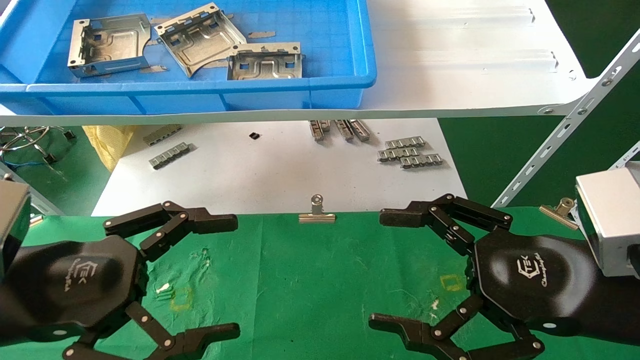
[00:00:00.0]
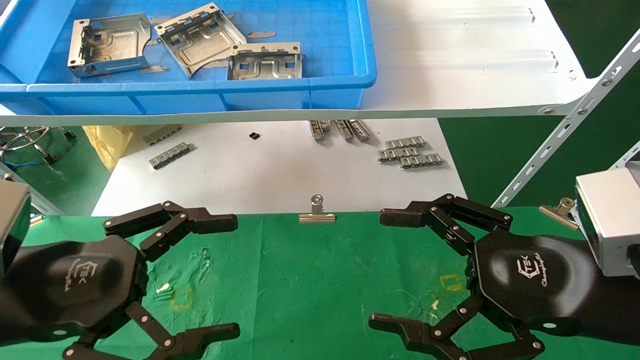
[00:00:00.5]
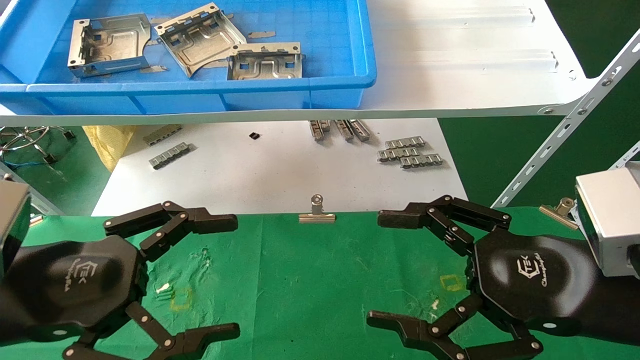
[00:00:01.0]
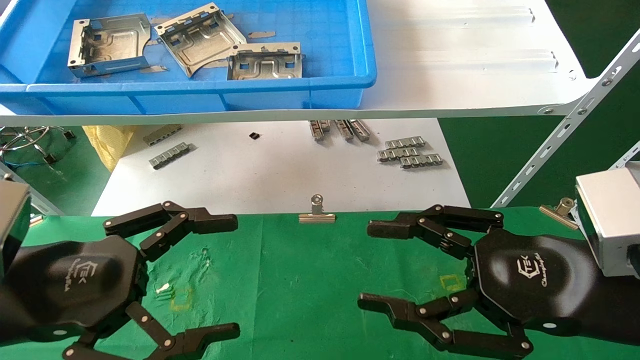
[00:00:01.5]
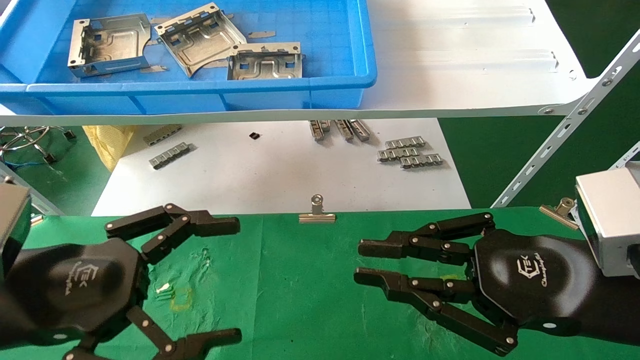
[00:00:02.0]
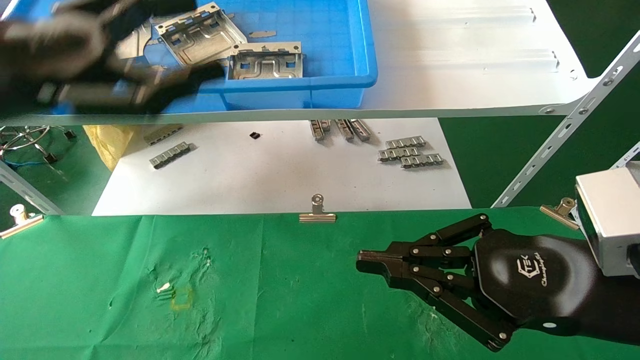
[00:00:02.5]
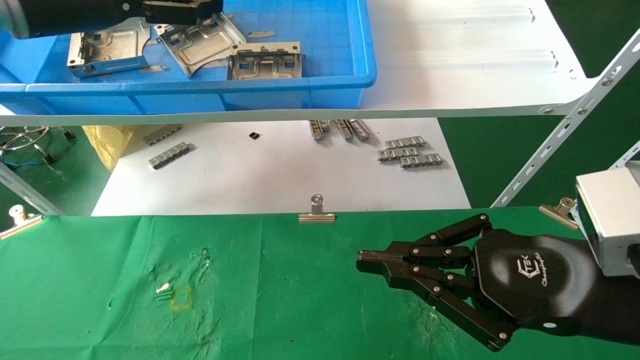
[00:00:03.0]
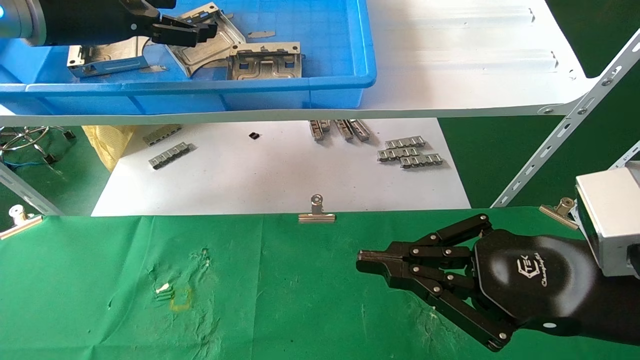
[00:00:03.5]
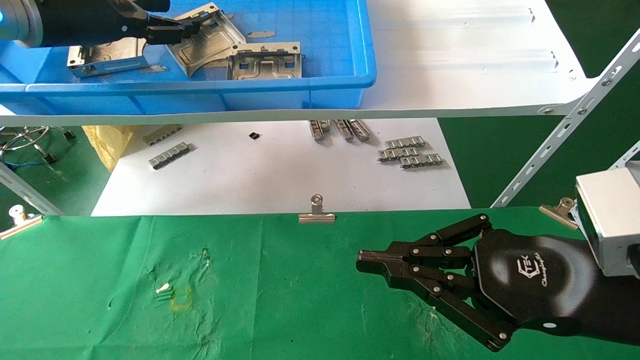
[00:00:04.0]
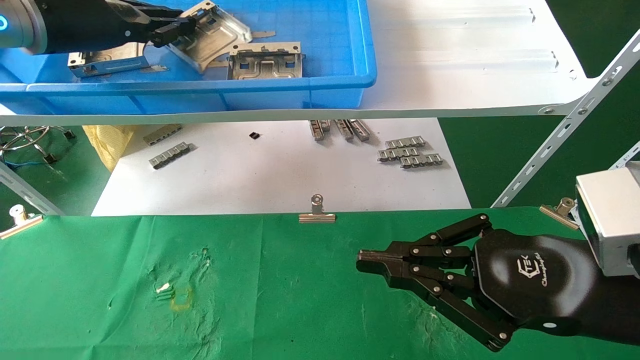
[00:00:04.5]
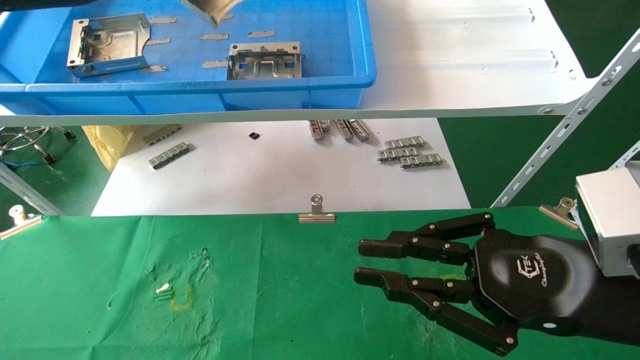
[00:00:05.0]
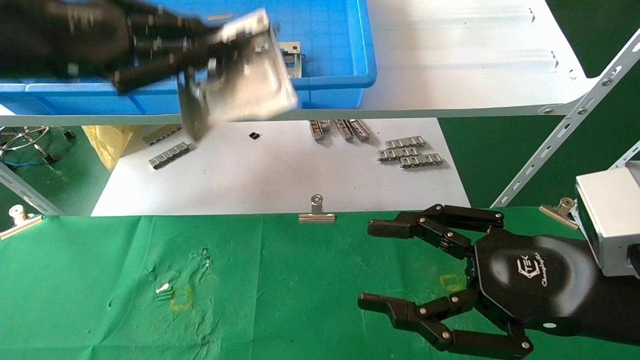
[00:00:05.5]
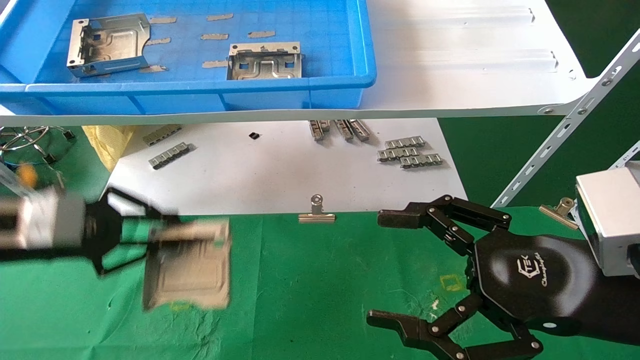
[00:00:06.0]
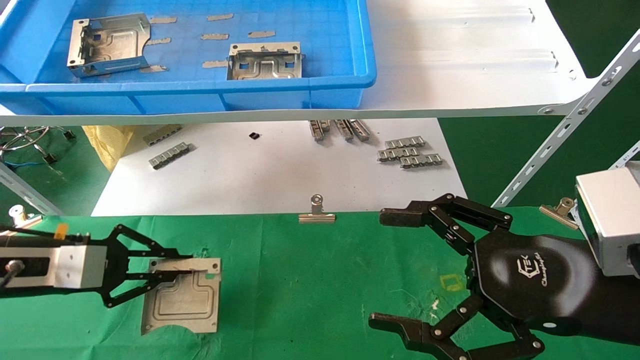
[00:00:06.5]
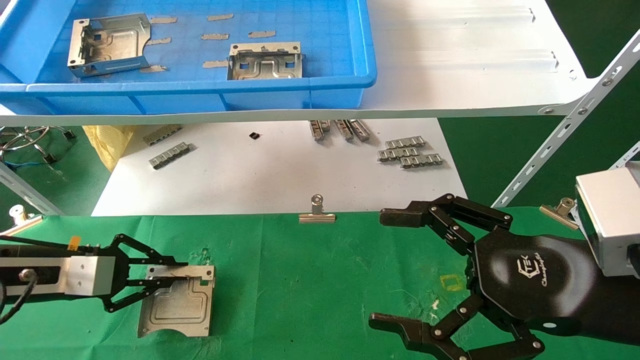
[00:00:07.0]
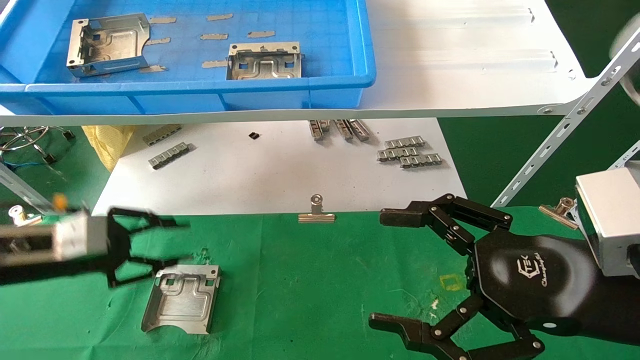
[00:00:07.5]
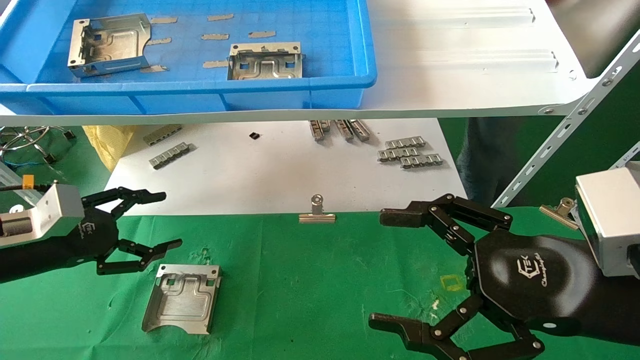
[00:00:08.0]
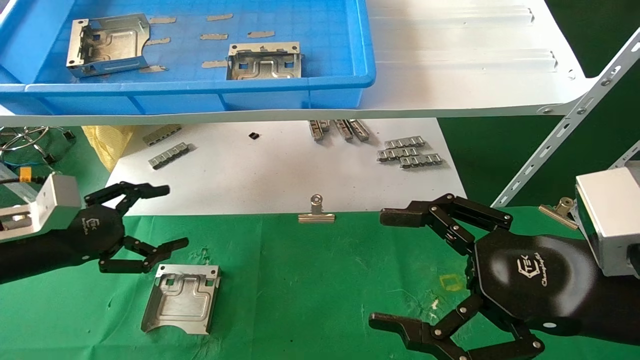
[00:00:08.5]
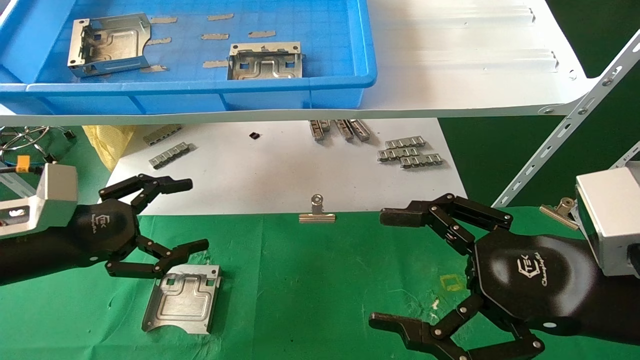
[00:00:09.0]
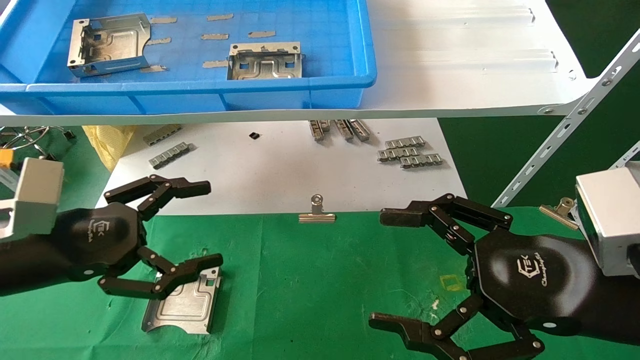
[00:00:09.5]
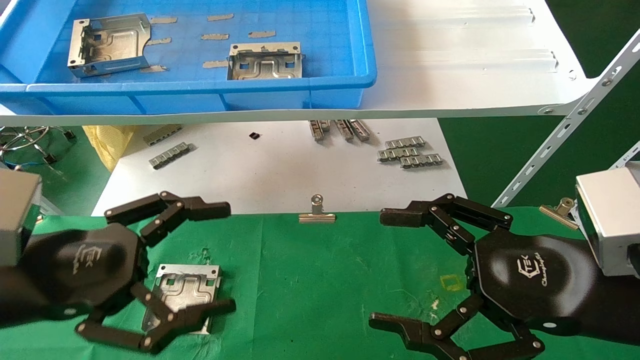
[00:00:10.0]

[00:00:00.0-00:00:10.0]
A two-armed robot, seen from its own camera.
Task of the whole recording: use the mechanical arm to pick up the parts and place them on the table.
Step, 00:00:02.5 to 00:00:04.5: Pick up the hard drive bracket from the feeding area.
Step, 00:00:05.0 to 00:00:07.0: Place the hard drive bracket into the box.
00:00:00.0 to 00:00:02.0: The right gripper closes its fingers.
00:00:02.0 to 00:00:04.0: The left gripper goes roughly 30 cm forward and upward, and closes its fingers.
00:00:04.0 to 00:00:06.0: The right gripper opens up. Meanwhile the left gripper goes roughly 25 cm downward and backward, and closes up.
00:00:06.0 to 00:00:08.0: The left gripper is displaced downward by some 5 cm, and opens.
00:00:08.0 to 00:00:10.0: The left gripper heads backward and to the right, covering some 15 cm.

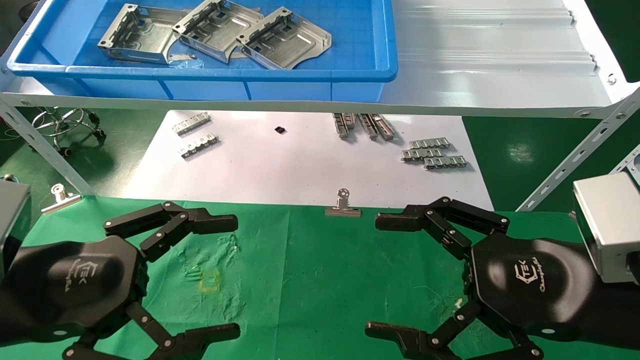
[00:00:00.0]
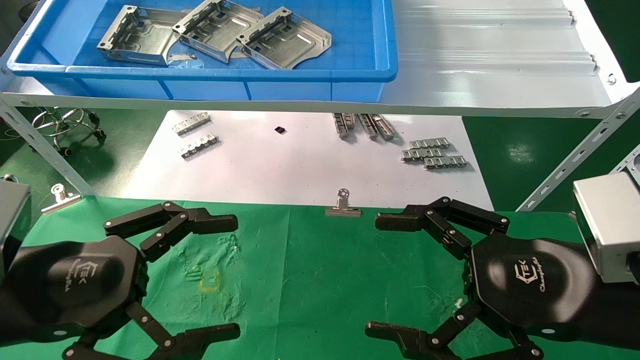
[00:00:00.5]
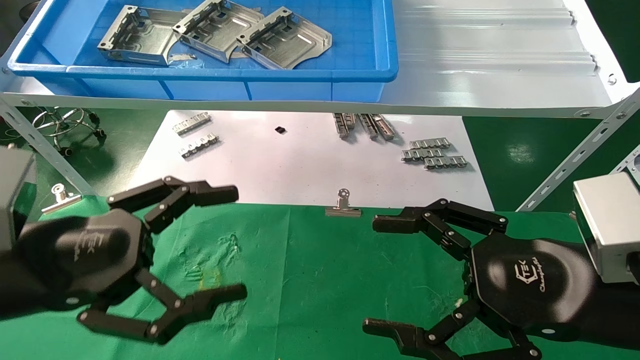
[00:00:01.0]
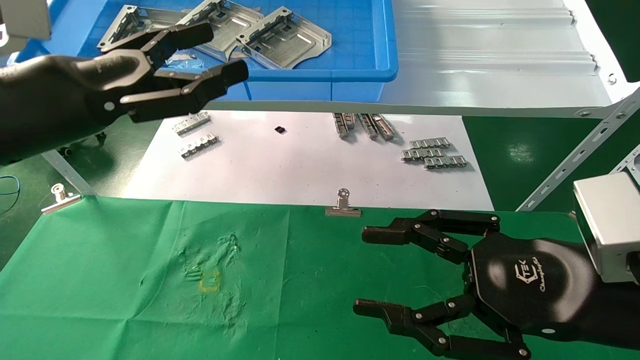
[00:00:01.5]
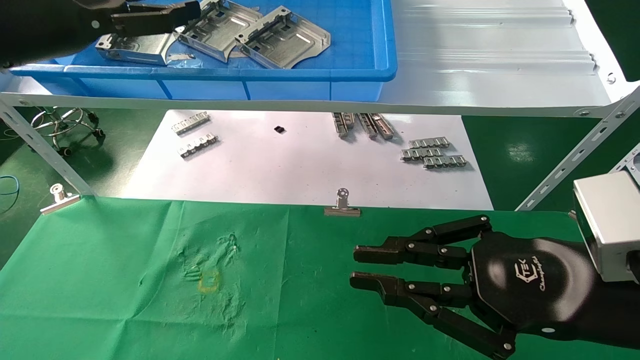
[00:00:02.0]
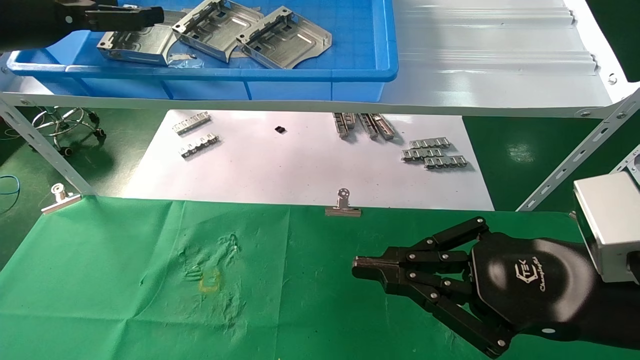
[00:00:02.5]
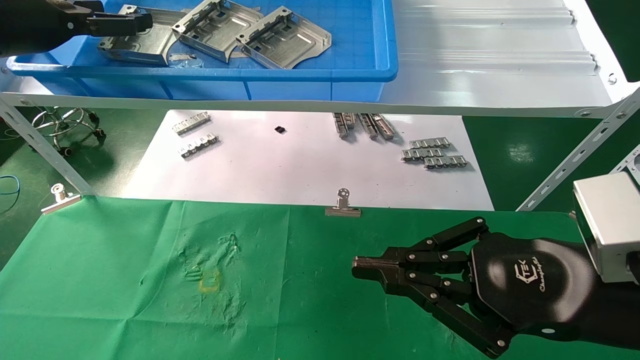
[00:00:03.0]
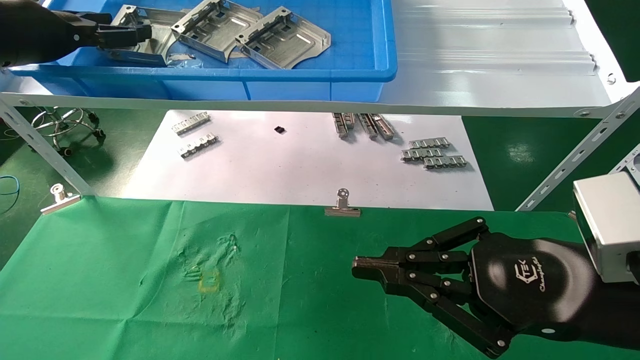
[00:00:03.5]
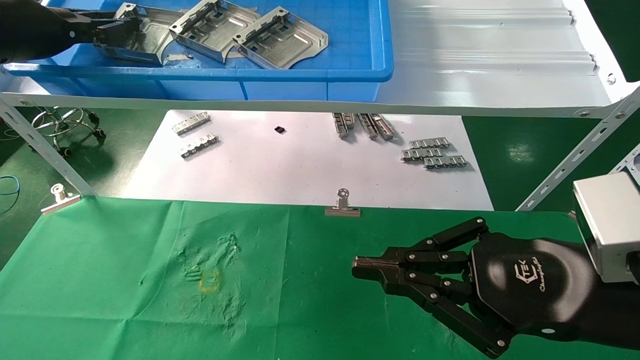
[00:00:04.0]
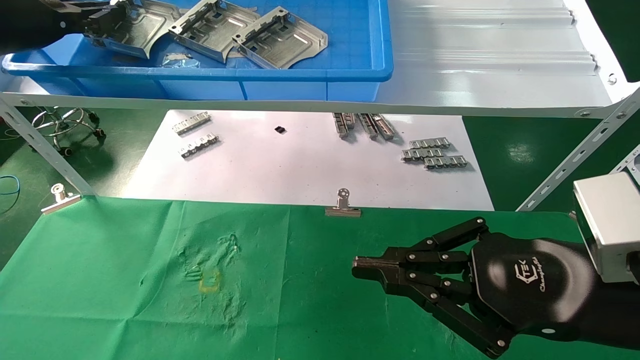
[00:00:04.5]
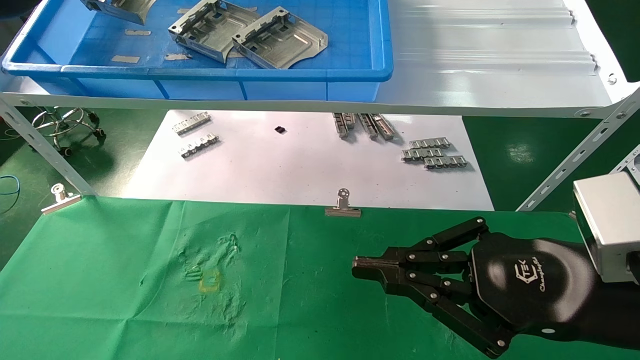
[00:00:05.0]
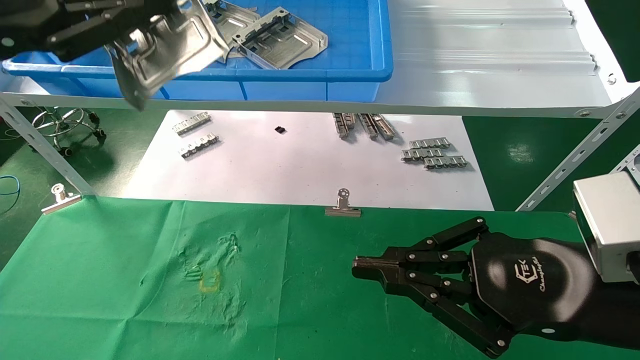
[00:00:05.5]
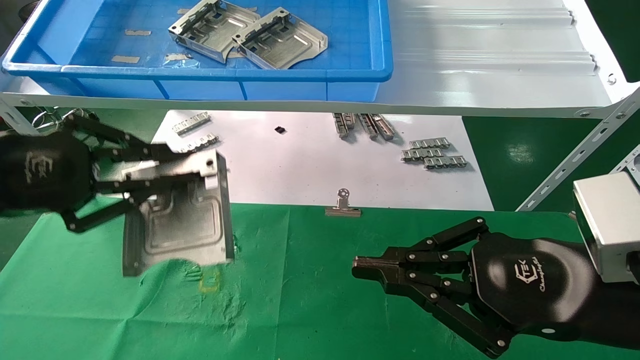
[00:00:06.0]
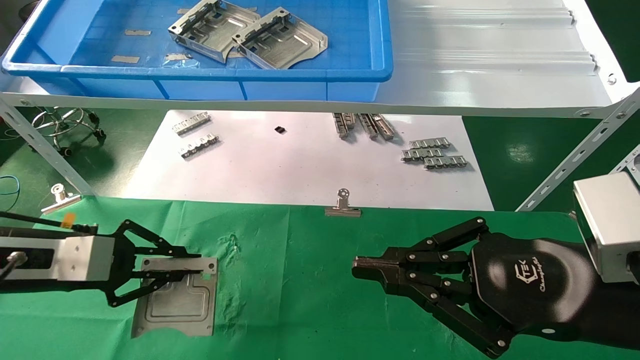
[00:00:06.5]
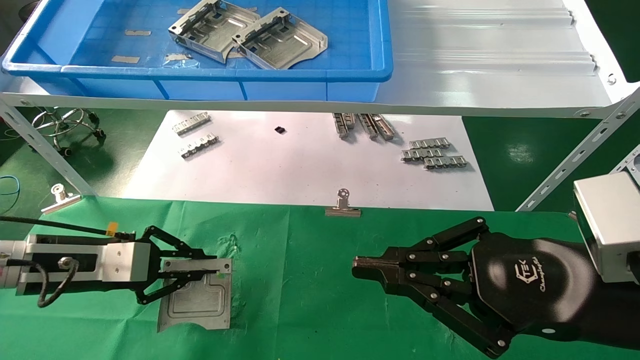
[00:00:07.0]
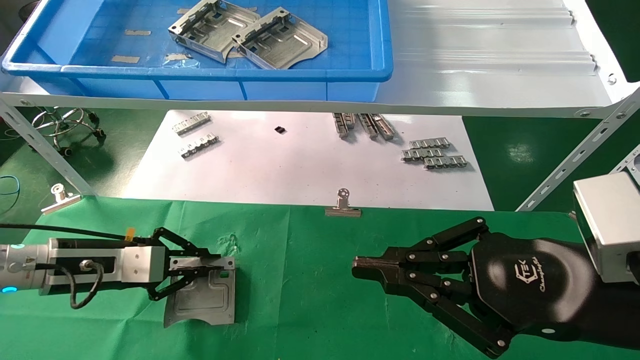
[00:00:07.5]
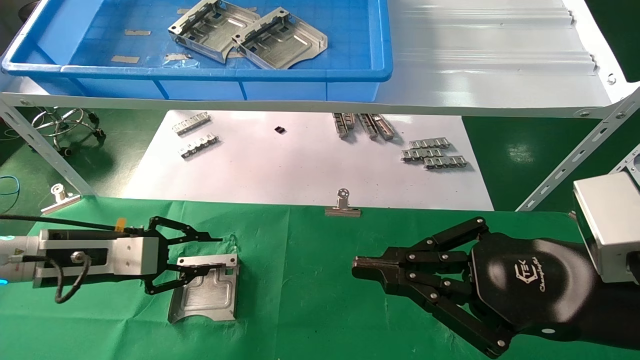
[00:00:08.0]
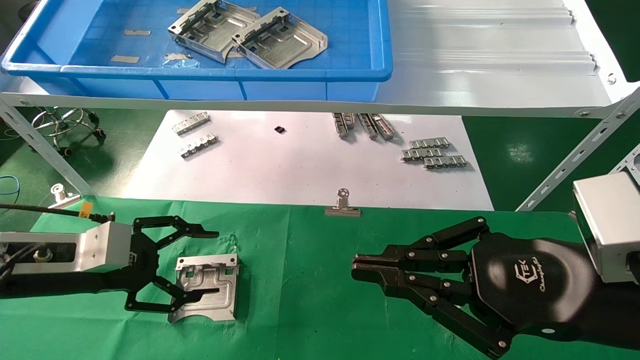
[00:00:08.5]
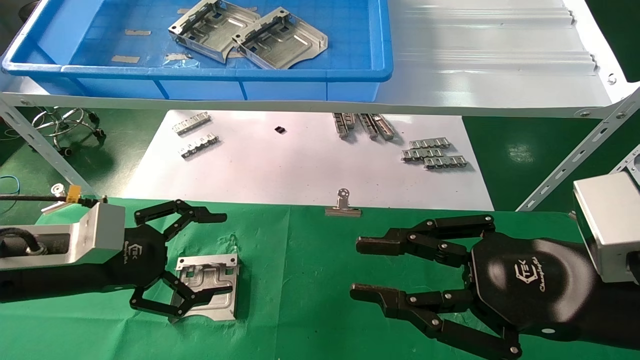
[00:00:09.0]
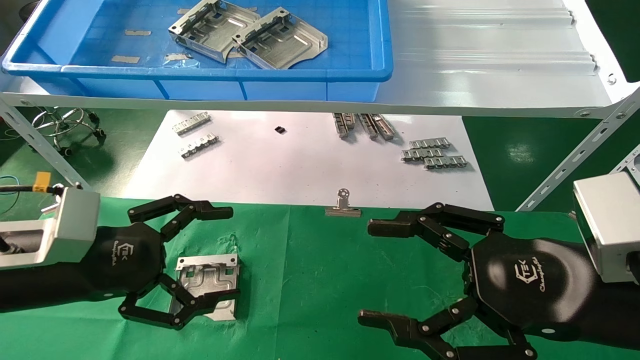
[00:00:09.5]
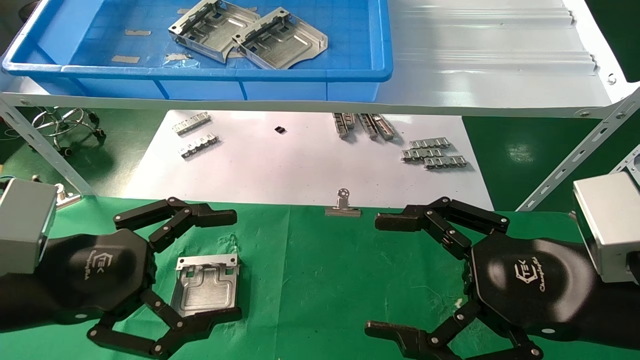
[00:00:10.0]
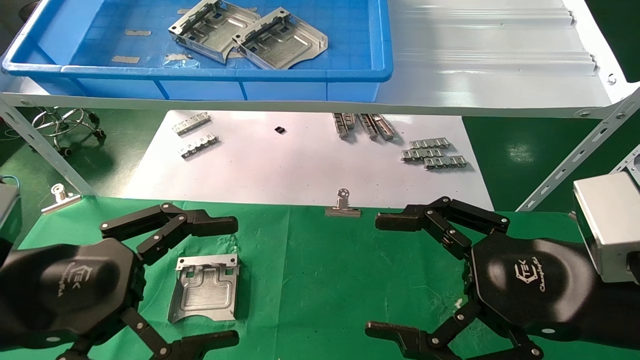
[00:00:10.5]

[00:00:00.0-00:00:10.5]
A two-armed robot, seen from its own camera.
Task of the whole recording: use the mechanical arm to pick up the parts and place them on the table.
Step, 00:00:01.5 to 00:00:04.0: Pick up the hard drive bracket from the feeding area.
Step, 00:00:04.5 to 00:00:07.5: Place the hard drive bracket into the box.
00:00:00.0 to 00:00:02.0: The left gripper moves upward and forward, some 25 cm. Meanwhile the right gripper closes.
00:00:02.0 to 00:00:04.0: The left gripper heads forward and to the left, covering some 10 cm, and closes up.
00:00:04.0 to 00:00:06.5: The left gripper travels downward and backward by some 25 cm.
00:00:06.5 to 00:00:08.5: The left gripper opens.
00:00:08.5 to 00:00:10.5: The left gripper travels backward by about 15 cm, and opens; the right gripper opens up.
